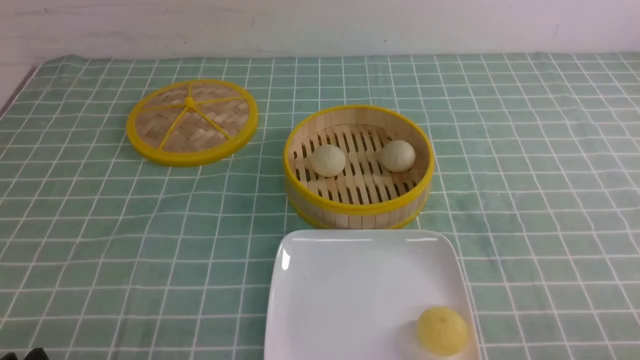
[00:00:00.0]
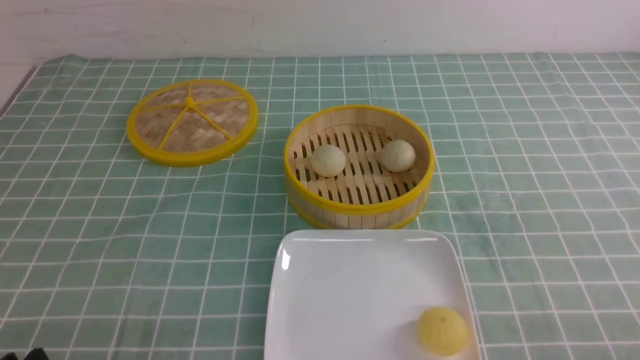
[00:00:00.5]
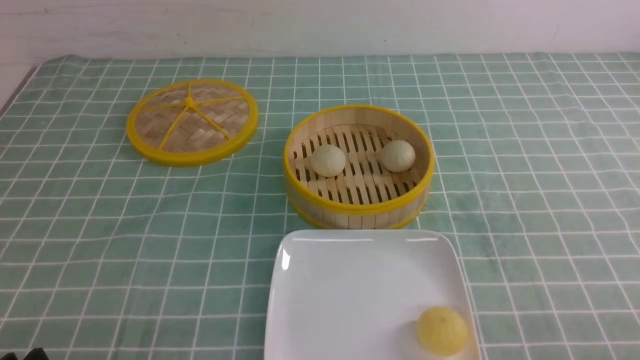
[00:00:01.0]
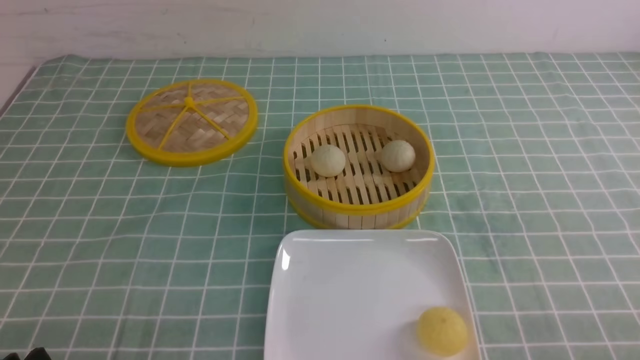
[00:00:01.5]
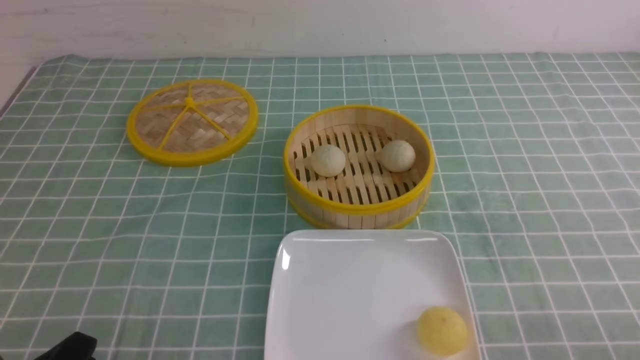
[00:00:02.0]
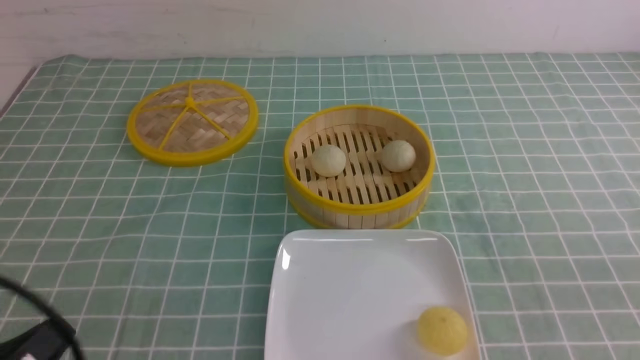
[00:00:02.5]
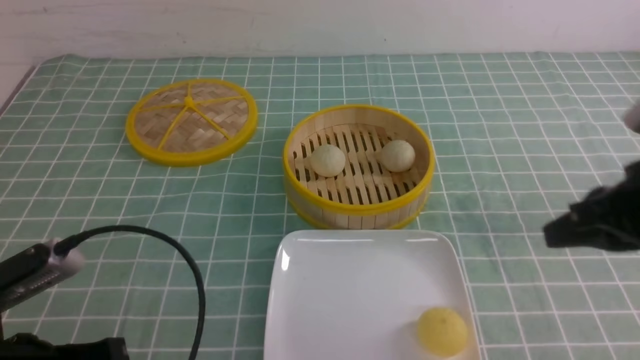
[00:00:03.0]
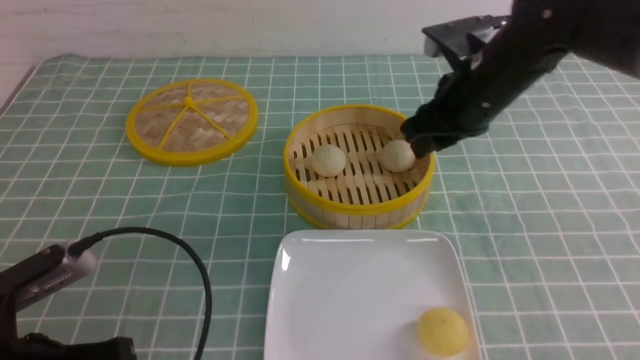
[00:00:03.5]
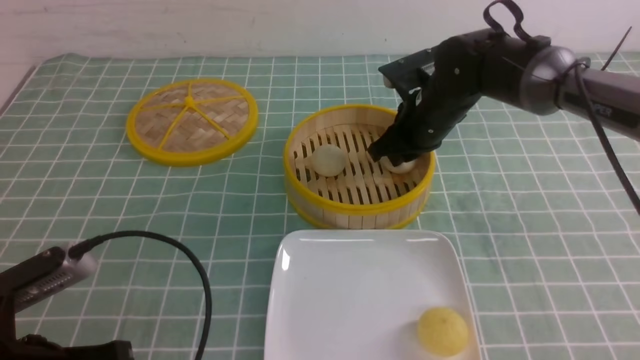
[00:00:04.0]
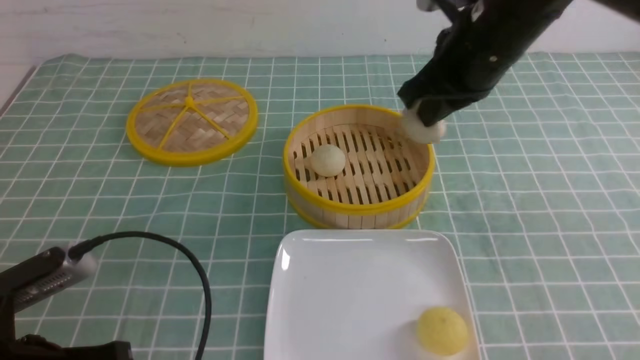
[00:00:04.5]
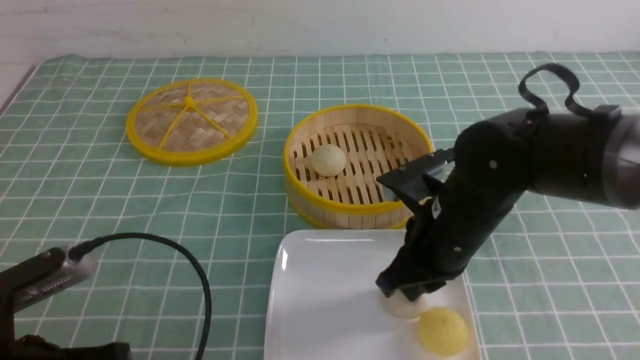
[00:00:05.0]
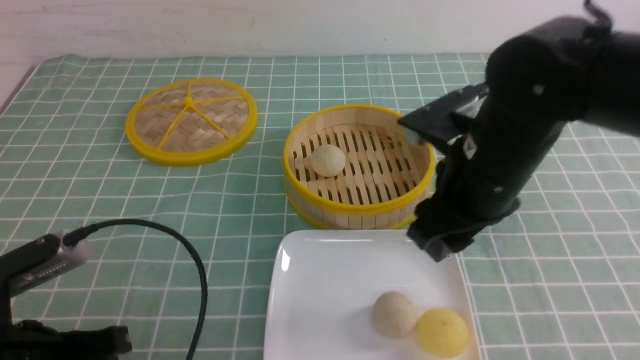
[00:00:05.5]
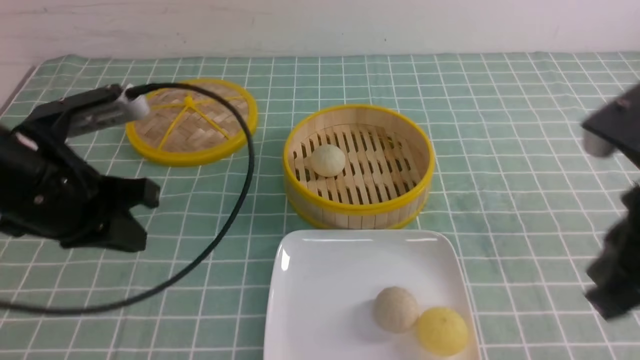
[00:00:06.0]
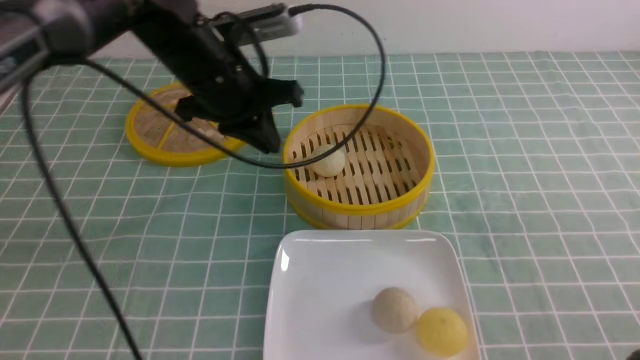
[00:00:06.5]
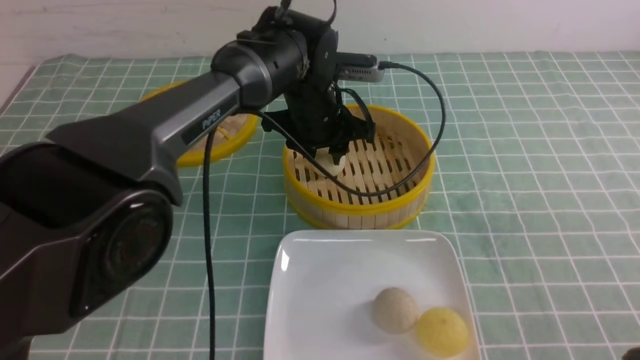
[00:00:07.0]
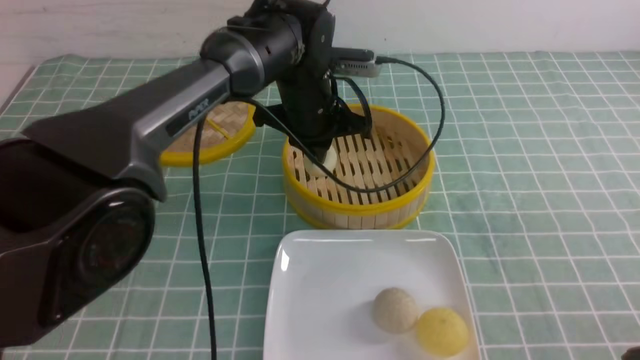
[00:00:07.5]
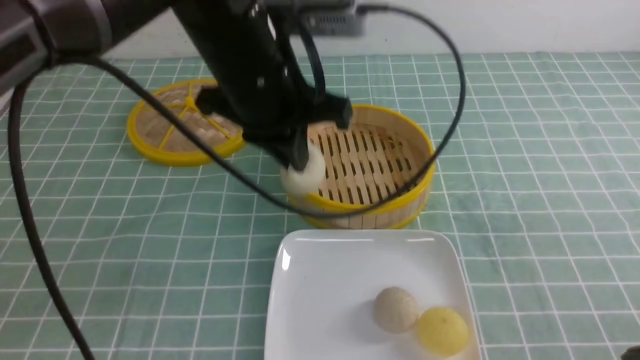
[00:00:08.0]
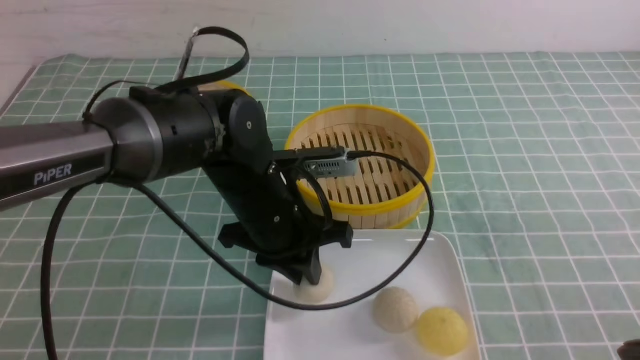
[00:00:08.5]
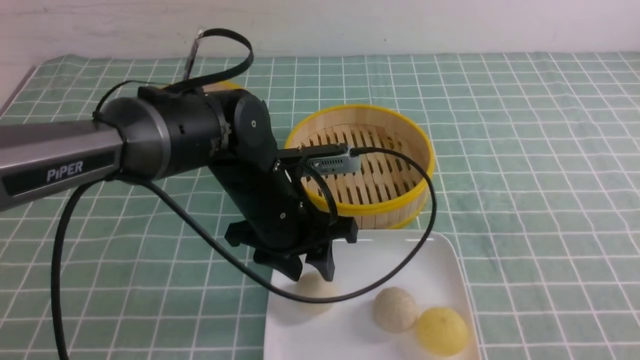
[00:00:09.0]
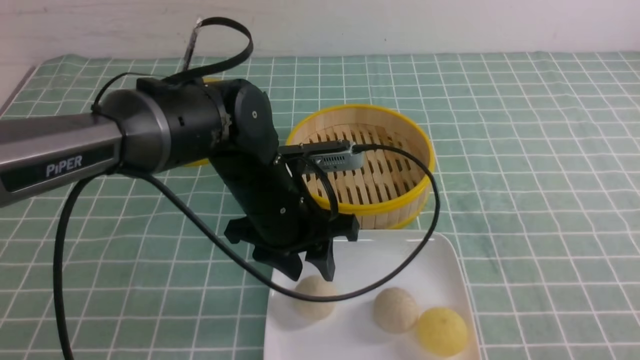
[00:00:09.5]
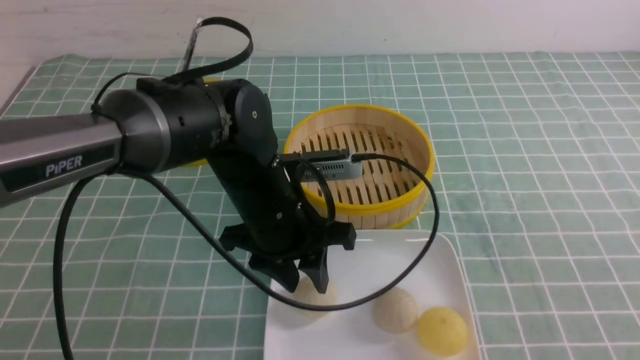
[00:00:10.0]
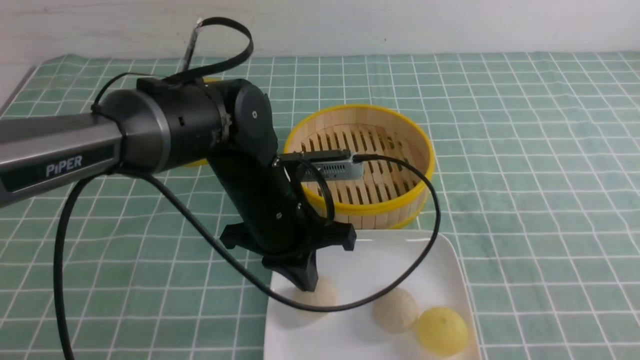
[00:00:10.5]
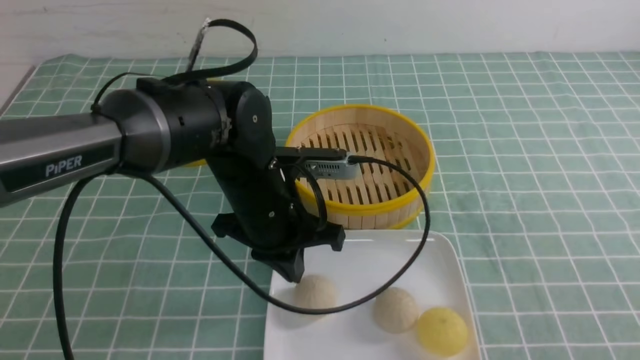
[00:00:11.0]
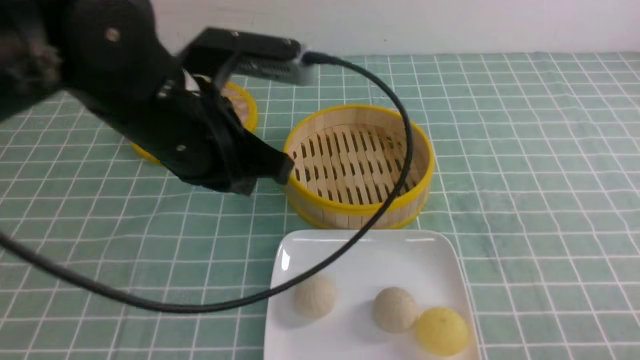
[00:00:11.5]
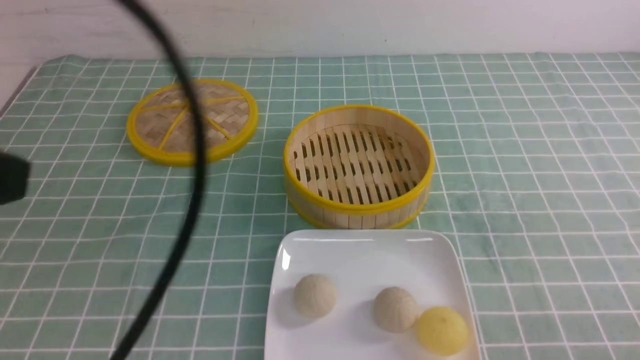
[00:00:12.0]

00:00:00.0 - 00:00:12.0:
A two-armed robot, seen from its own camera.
Step, 00:00:00.0 - 00:00:04.0: use the right arm to grab the steamed stuffed bun that is closest to it.
Step, 00:00:04.5 - 00:00:05.0: use the right arm to put the steamed stuffed bun into the plate.
Step, 00:00:05.5 - 00:00:07.0: use the left arm to grab the steamed stuffed bun that is closest to it.
Step, 00:00:08.0 - 00:00:08.5: use the left arm to put the steamed stuffed bun into the plate.
00:00:02.0 - 00:00:04.0: The right gripper heads forward and to the left, covering some 40 cm, and closes, then reopens. Meanwhile the left gripper travels forward by roughly 5 cm, and closes.
00:00:04.0 - 00:00:06.0: The right gripper heads backward and upward, covering approximately 30 cm, and closes; the left gripper is displaced forward and upward by approximately 10 cm.
00:00:06.0 - 00:00:08.0: The left gripper heads to the right and forward, covering approximately 20 cm, and opens, then closes once more, while the right gripper is displaced backward, downward and to the right by about 15 cm.
00:00:08.0 - 00:00:10.0: The right gripper is displaced backward by about 5 cm, while the left gripper moves downward, some 15 cm, and opens its fingers.
00:00:10.0 - 00:00:12.0: The right gripper moves downward, roughly 10 cm, while the left gripper travels upward, backward and to the left by some 30 cm, and closes.

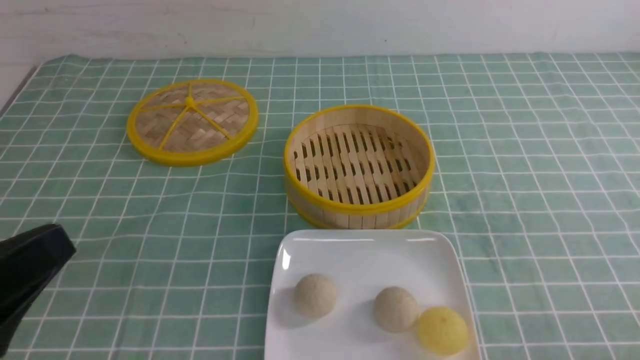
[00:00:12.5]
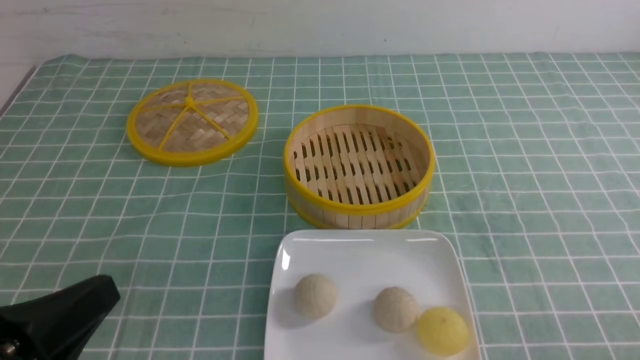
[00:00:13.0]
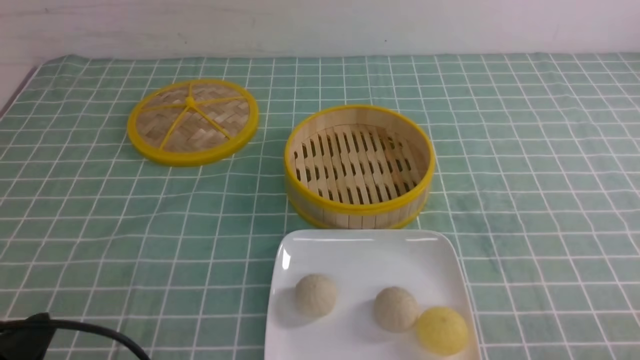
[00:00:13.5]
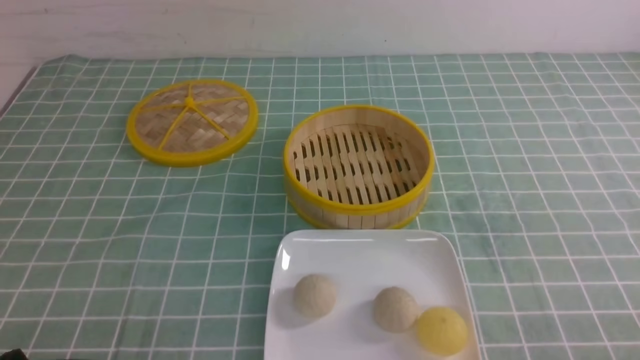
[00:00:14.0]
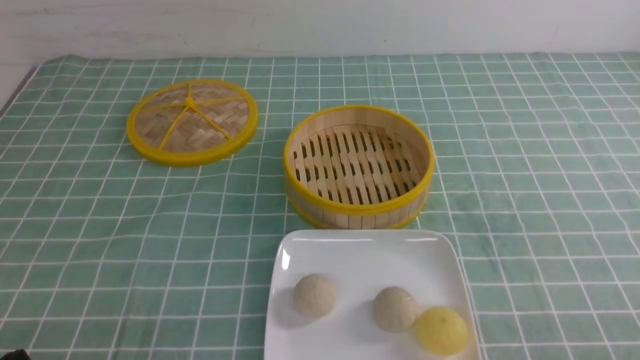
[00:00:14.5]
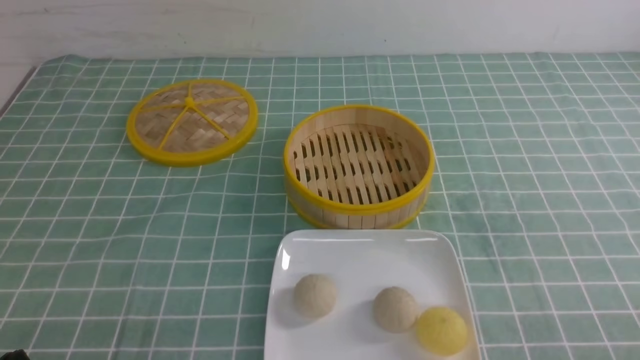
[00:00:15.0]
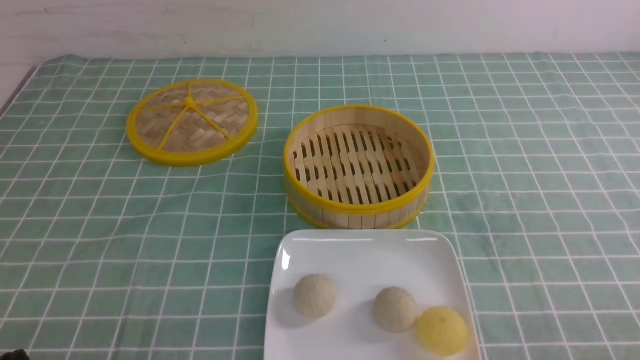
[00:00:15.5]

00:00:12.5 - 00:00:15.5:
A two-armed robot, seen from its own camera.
00:00:12.5 - 00:00:14.0: The left gripper shifts approximately 15 cm downward.
00:00:14.0 - 00:00:15.5: Neither gripper changes place.

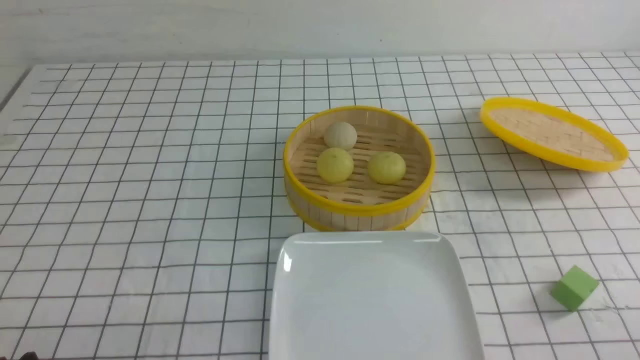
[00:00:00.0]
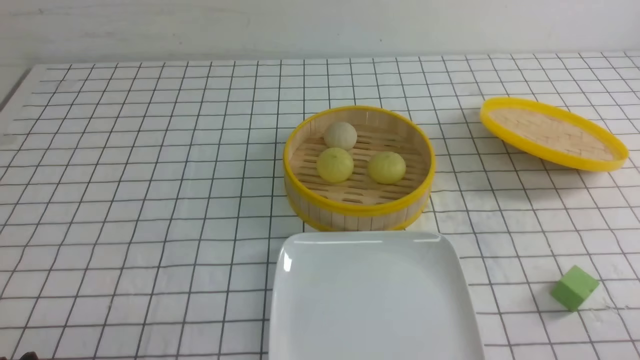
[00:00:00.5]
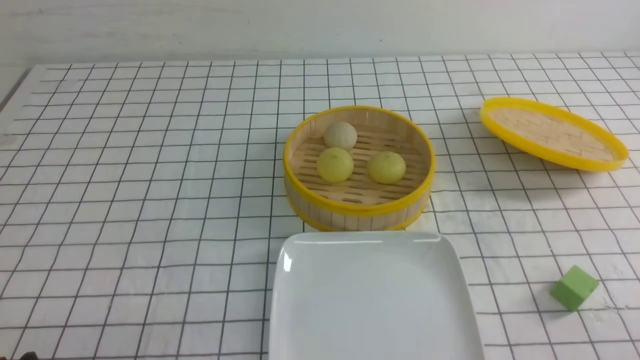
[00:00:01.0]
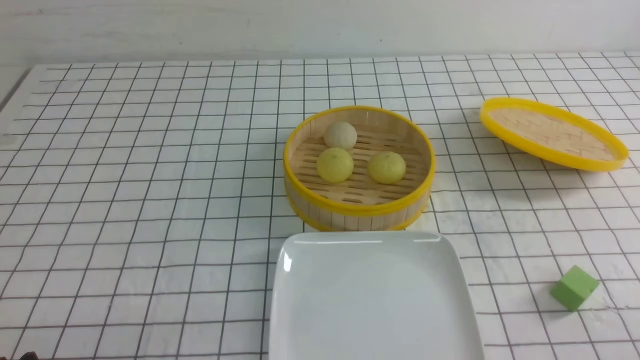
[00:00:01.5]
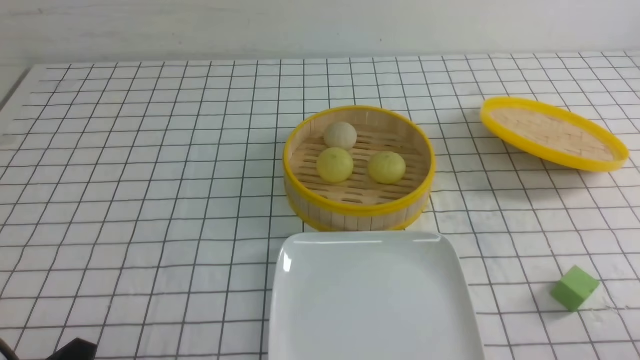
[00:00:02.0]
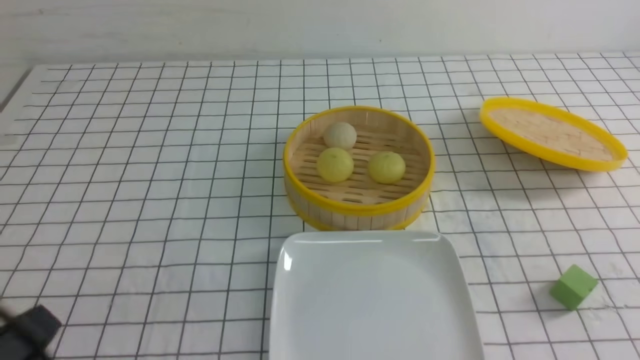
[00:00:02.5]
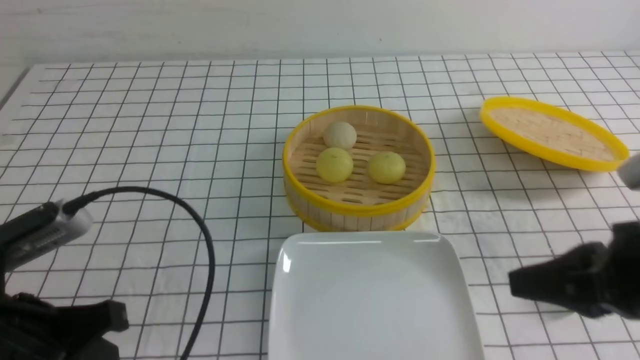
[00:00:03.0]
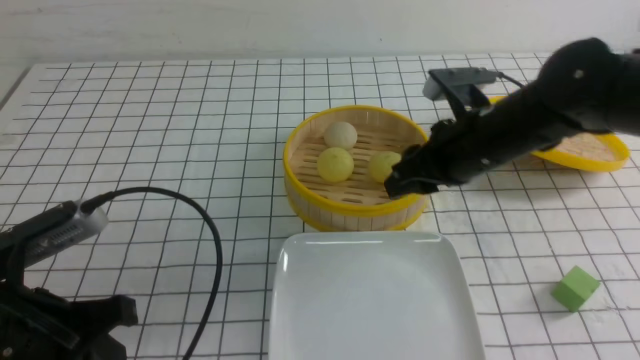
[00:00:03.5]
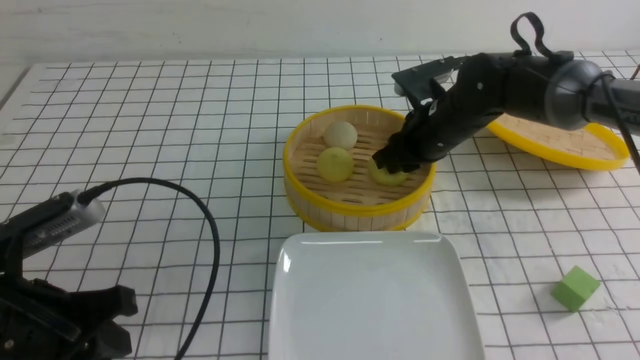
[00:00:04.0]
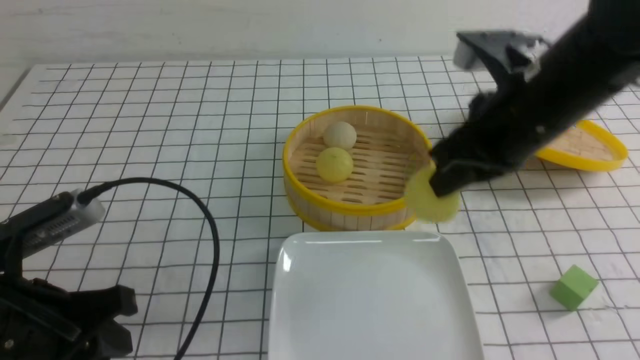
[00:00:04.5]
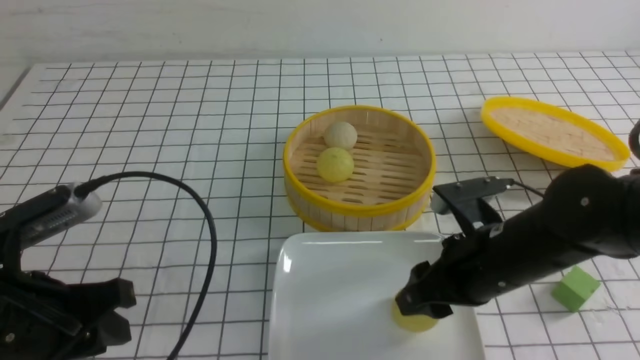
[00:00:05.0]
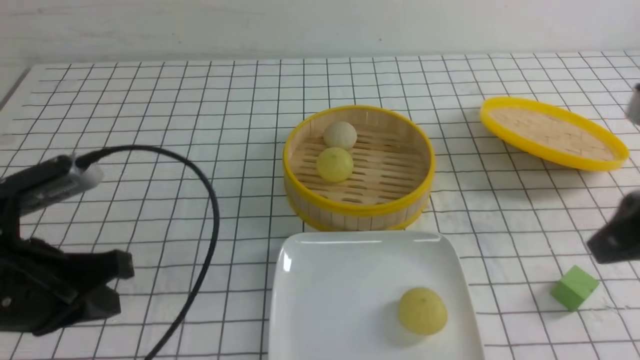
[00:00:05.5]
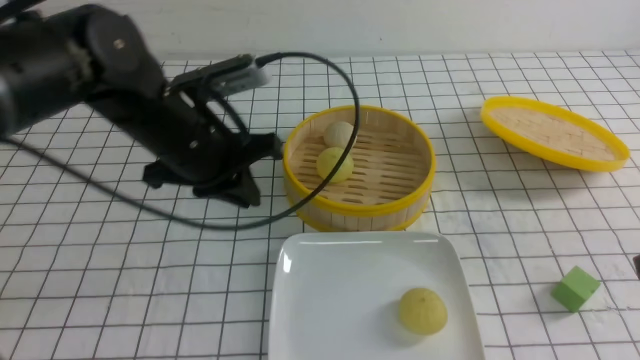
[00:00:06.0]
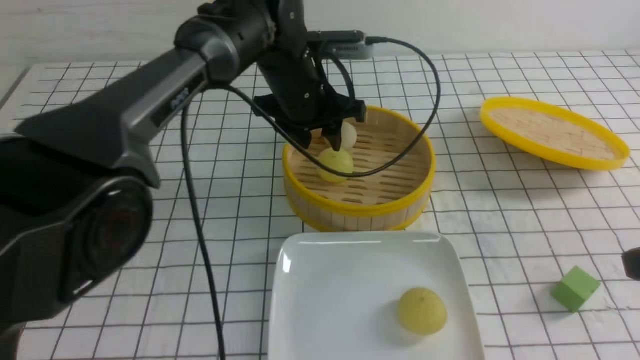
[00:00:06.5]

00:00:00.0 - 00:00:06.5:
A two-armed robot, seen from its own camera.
Step, 00:00:00.0 - 00:00:04.0: use the right arm to grab the steamed stuffed bun that is closest to it.
Step, 00:00:04.5 - 00:00:05.0: use the right arm to put the steamed stuffed bun into the plate.
00:00:02.0 - 00:00:04.5: The right gripper travels forward and to the left by roughly 30 cm, and closes, while the left gripper shifts about 10 cm forward and upward, and closes, then reopens.
00:00:04.5 - 00:00:06.5: The right gripper travels backward and to the right by about 20 cm, and opens, then closes once more, while the left gripper travels forward and to the right by roughly 35 cm, and opens its fingers.
